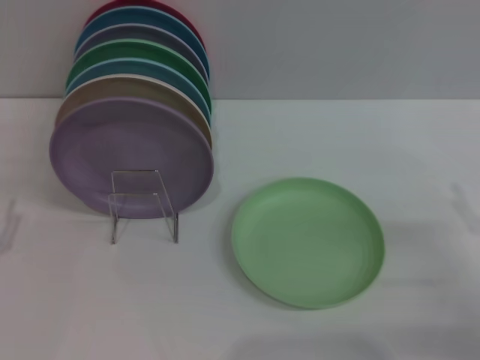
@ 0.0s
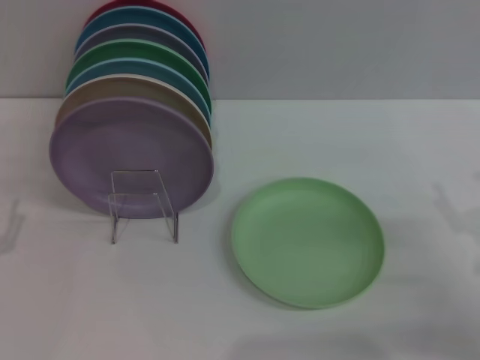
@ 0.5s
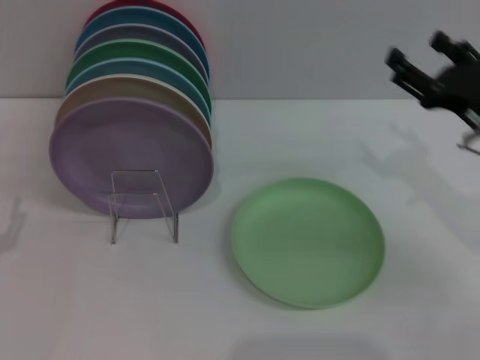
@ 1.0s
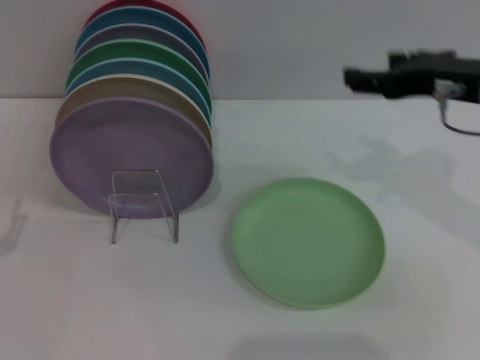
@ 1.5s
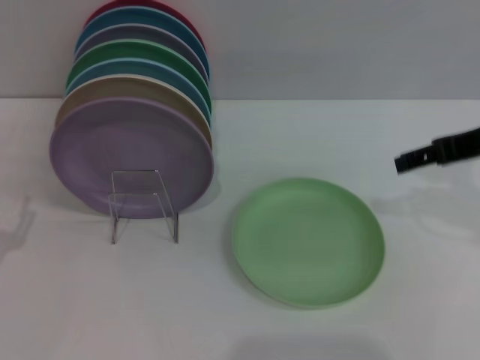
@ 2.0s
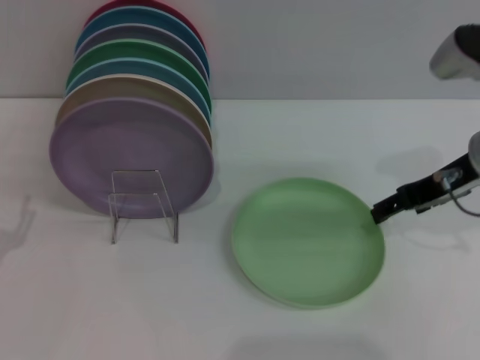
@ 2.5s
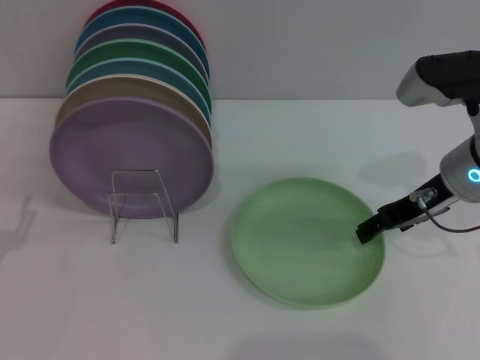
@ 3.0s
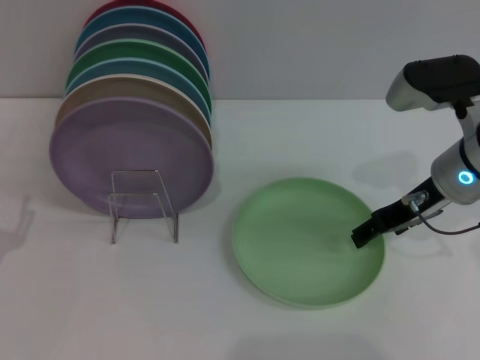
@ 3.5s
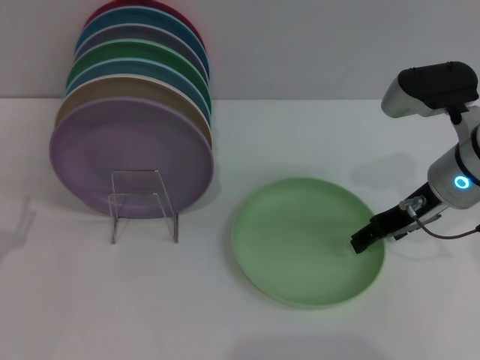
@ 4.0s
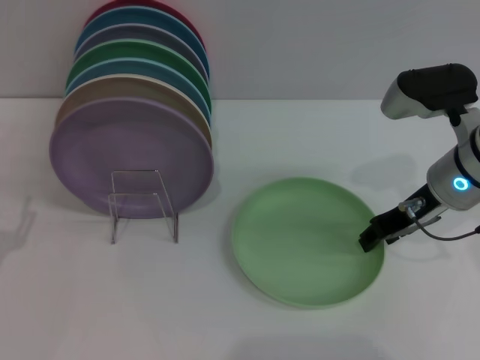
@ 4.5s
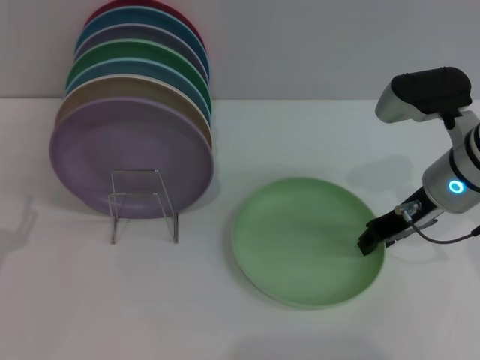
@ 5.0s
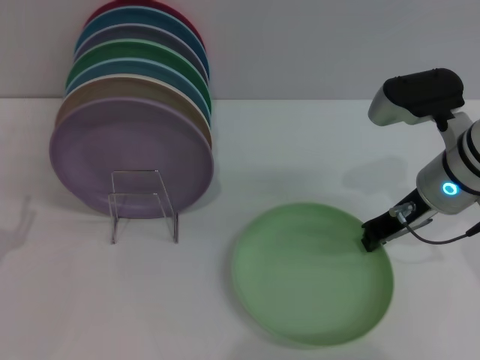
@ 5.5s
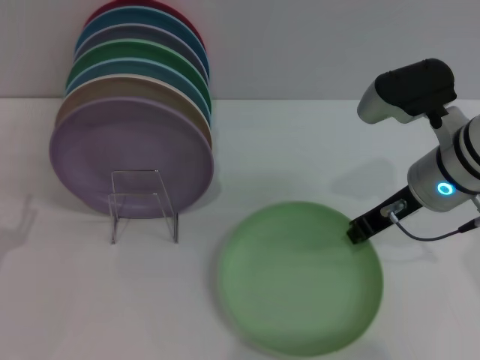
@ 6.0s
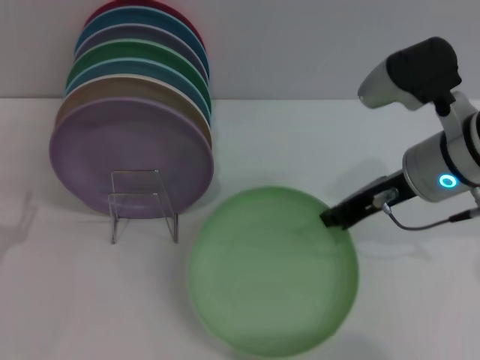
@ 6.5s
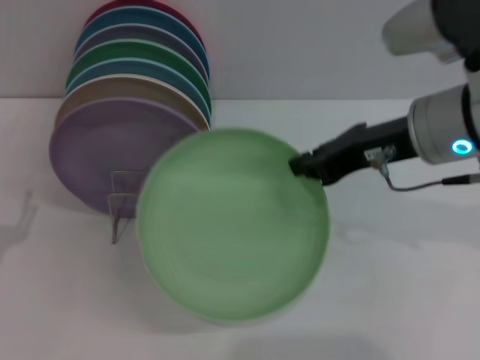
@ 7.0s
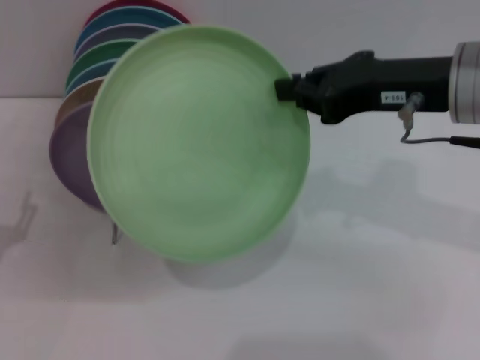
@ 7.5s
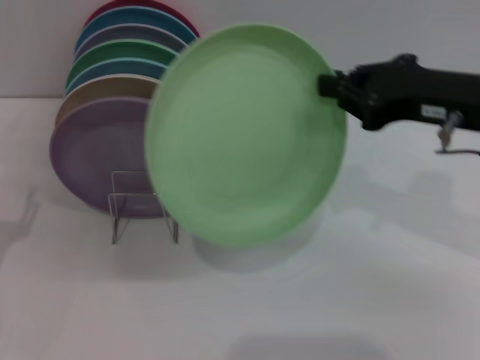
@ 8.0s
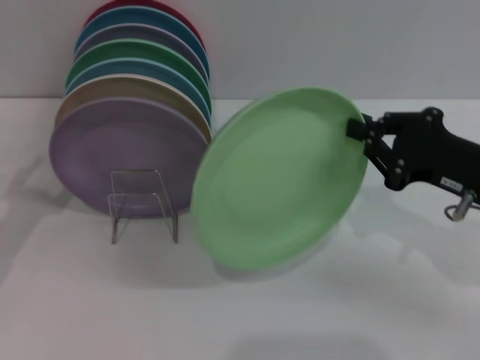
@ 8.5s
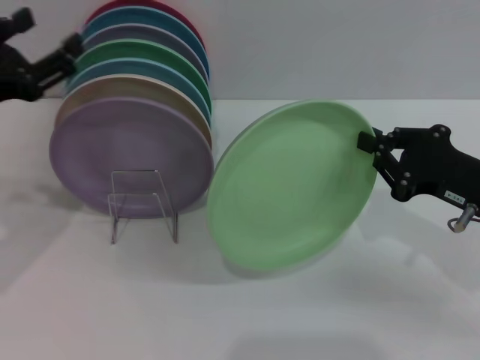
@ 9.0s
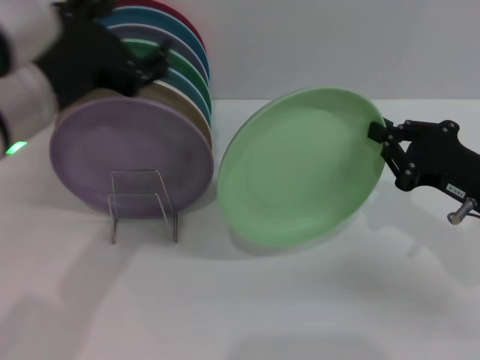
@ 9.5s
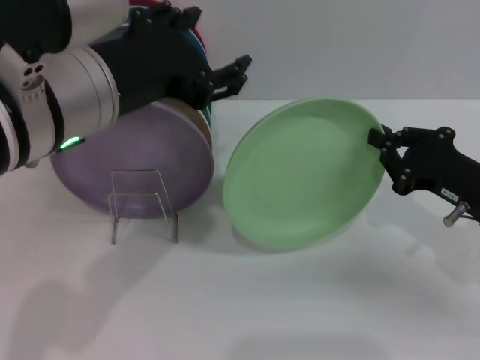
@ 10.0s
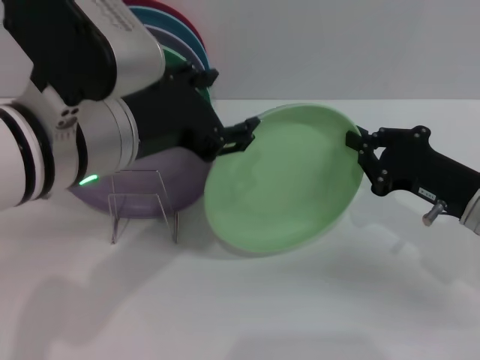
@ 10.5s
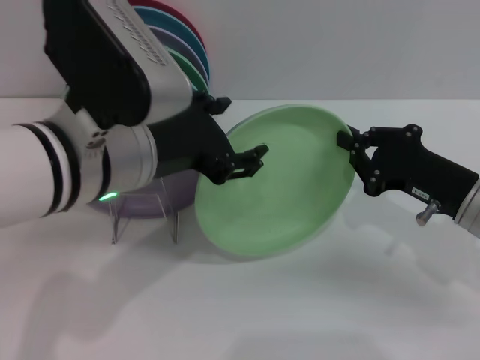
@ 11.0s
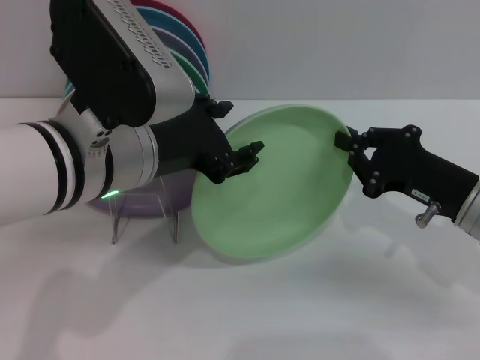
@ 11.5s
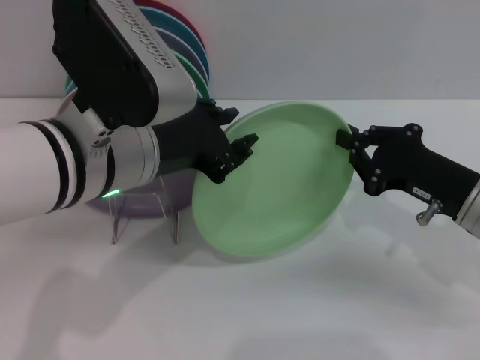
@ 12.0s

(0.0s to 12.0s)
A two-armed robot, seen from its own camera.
Task of the whole recording: Grip the plate with one hand, pass it to the other, then set it on the shelf.
Step, 0.0s - 6.5s: Pick up the plate with the right gripper.
0.0s - 2.0s: The right gripper travels upward and forward by some 20 cm.
2.0s - 4.0s: The right gripper shifts some 10 cm downward.
4.0s - 6.0s: The right gripper closes up.
6.0s - 8.0s: The right gripper heads upward, covering about 5 cm.
8.0s - 10.0s: The left gripper goes roughly 30 cm upward and to the right, while the right gripper is displaced downward by roughly 15 cm.
10.0s - 12.0s: The left gripper shifts by some 5 cm, and closes.

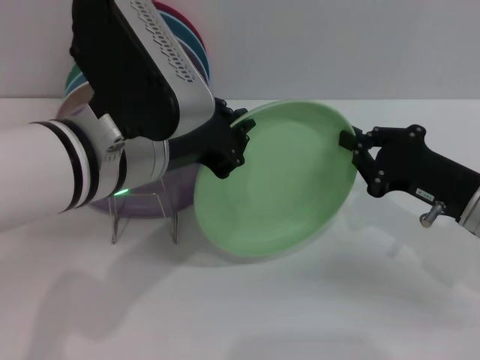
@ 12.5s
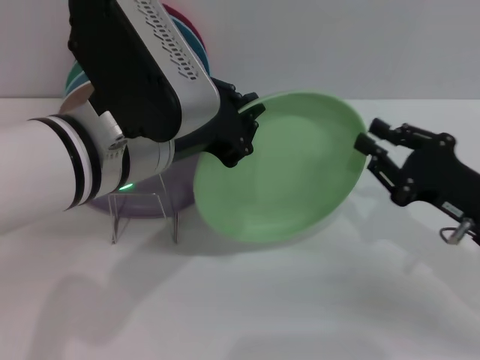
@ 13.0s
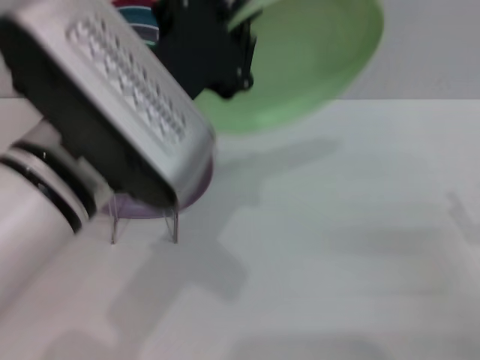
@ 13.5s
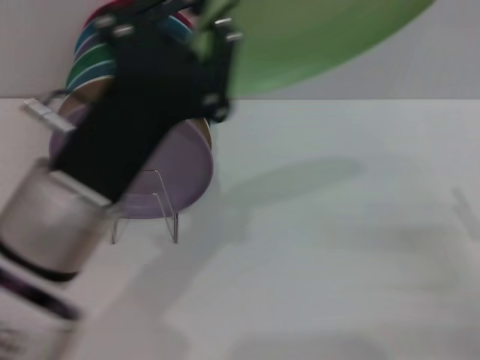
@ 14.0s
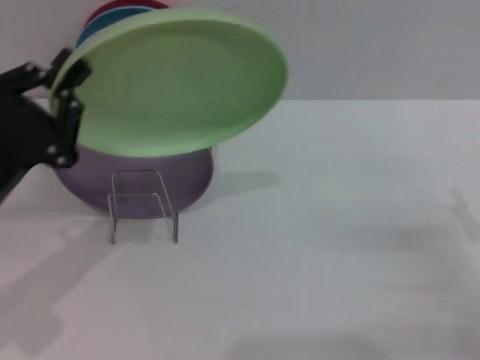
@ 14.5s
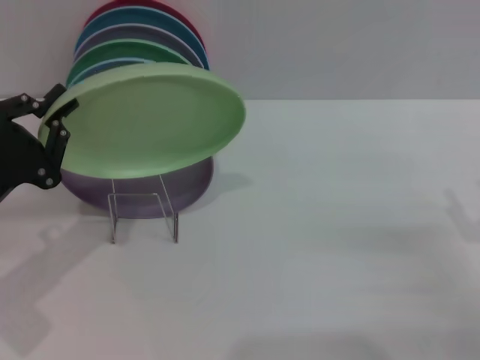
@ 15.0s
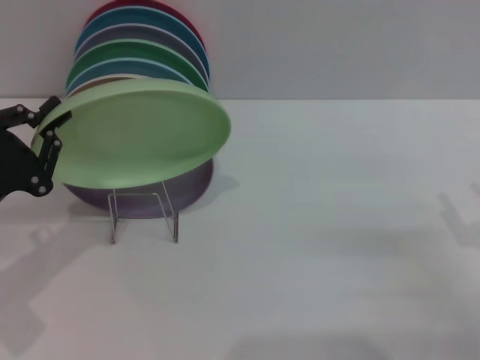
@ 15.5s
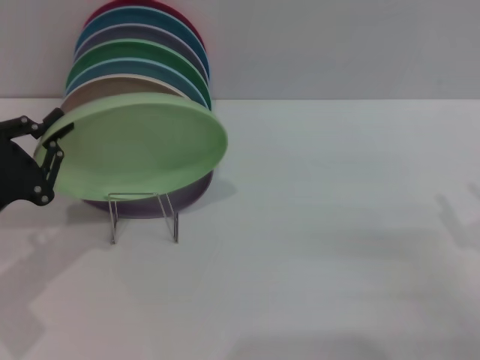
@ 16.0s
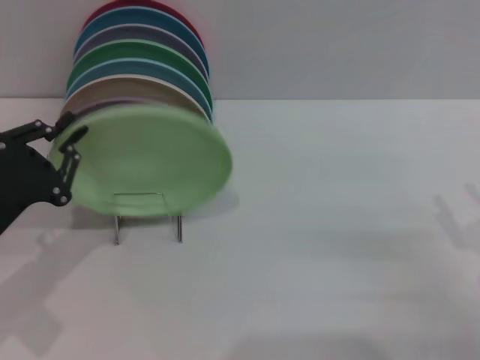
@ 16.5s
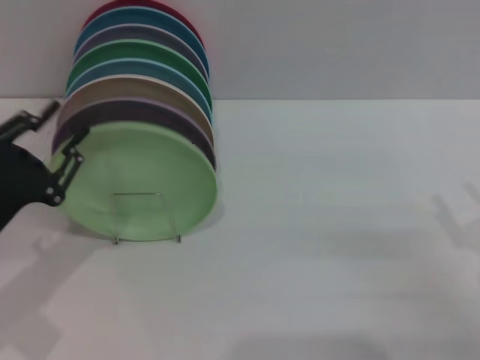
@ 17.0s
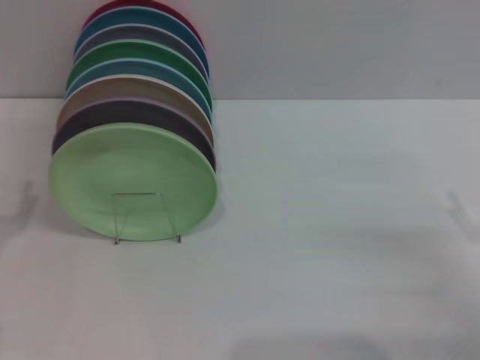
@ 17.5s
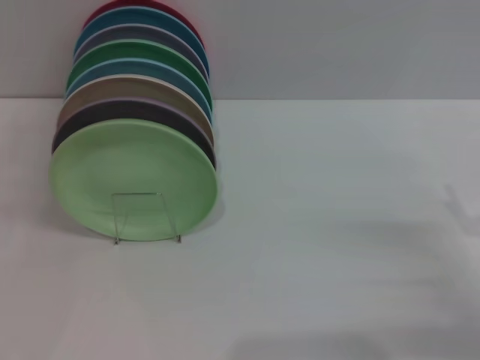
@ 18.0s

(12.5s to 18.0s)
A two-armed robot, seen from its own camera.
Task of the whole recording: Grip the plate with one hand, pass it to the other, then set it on the shelf.
Step, 13.5s - 17.0s: Place the plate on the shelf with the left gripper.
12.5s - 14.5s: The left gripper shifts about 20 cm to the left and downward, while the right gripper goes some 10 cm backward and to the right, and opens up.
14.5s - 16.0s: The grippers stay close to where they were, moving slightly.
16.0s - 18.0s: The left gripper is displaced backward by about 5 cm, and opens up.

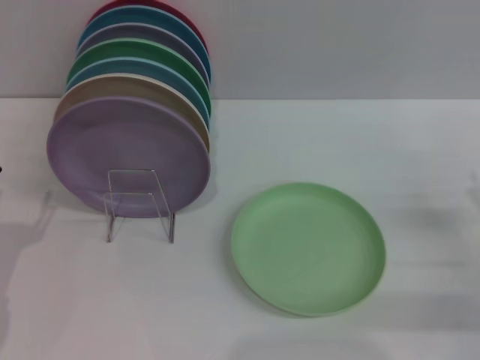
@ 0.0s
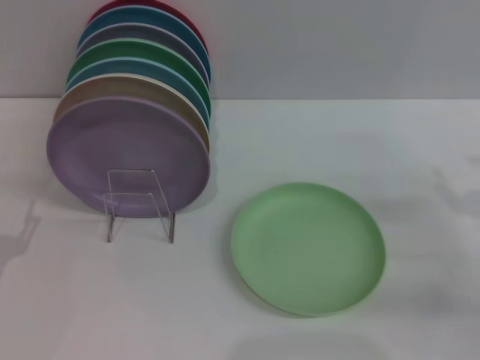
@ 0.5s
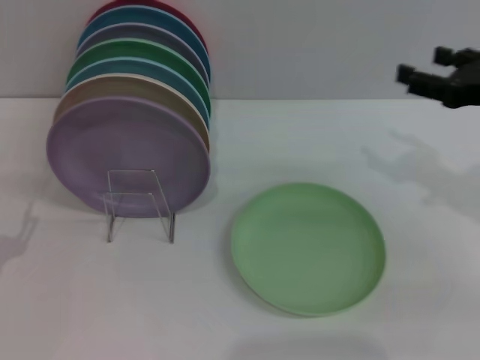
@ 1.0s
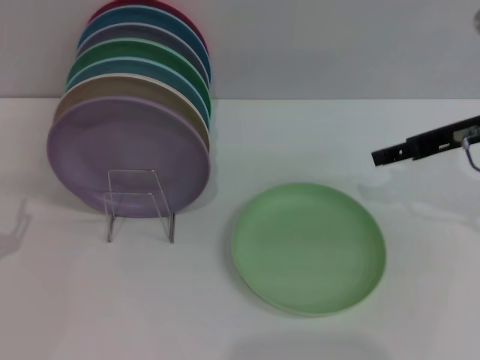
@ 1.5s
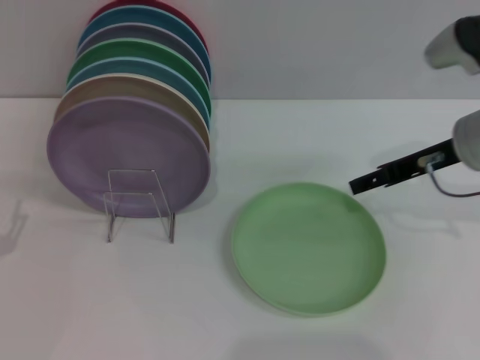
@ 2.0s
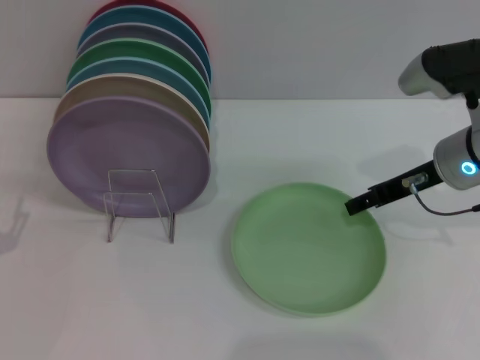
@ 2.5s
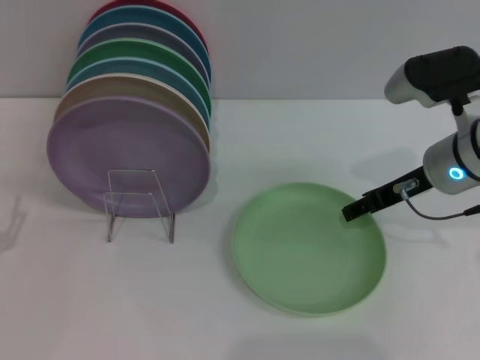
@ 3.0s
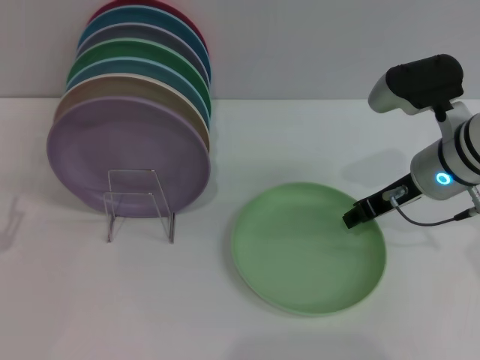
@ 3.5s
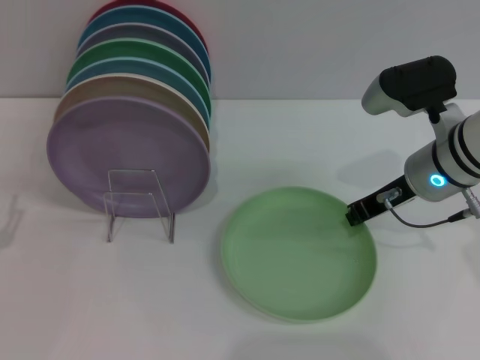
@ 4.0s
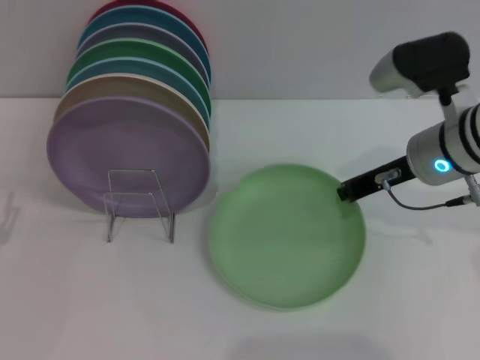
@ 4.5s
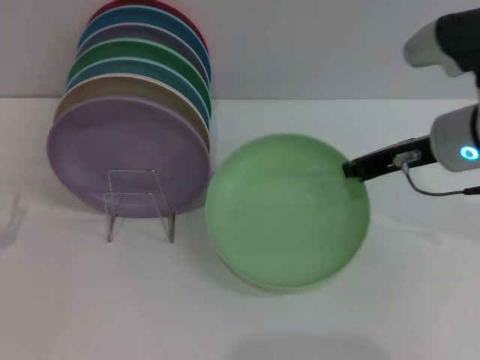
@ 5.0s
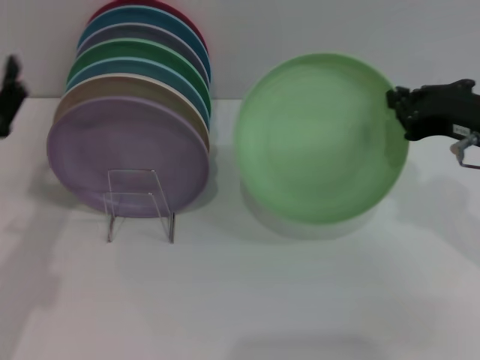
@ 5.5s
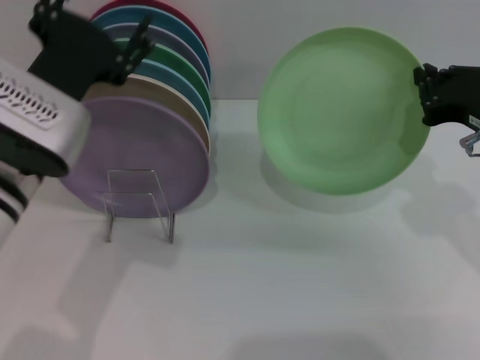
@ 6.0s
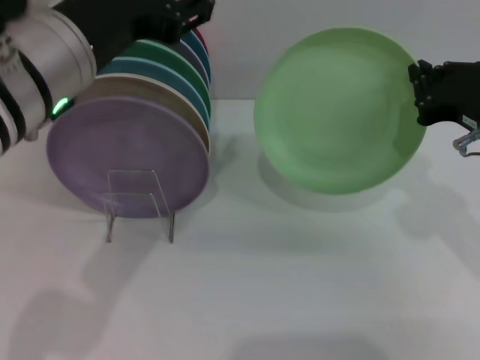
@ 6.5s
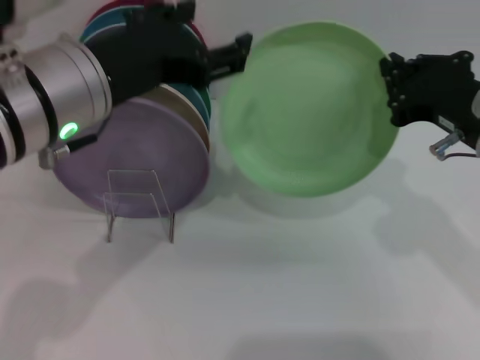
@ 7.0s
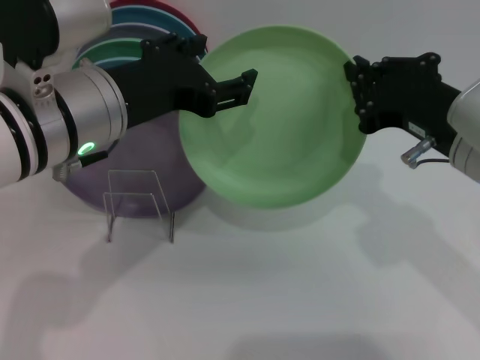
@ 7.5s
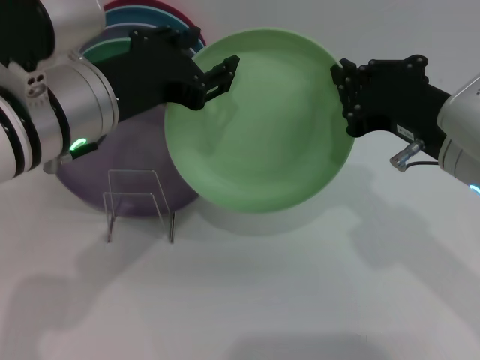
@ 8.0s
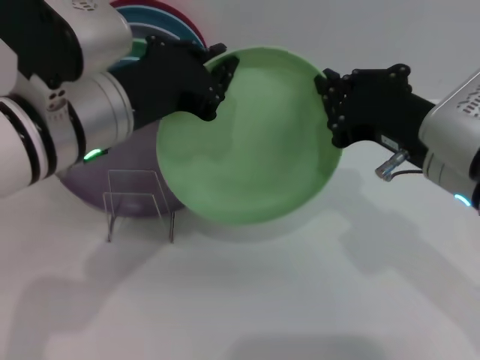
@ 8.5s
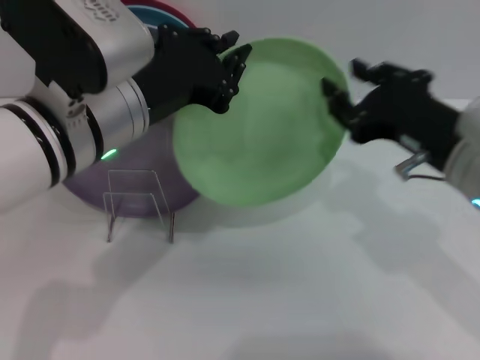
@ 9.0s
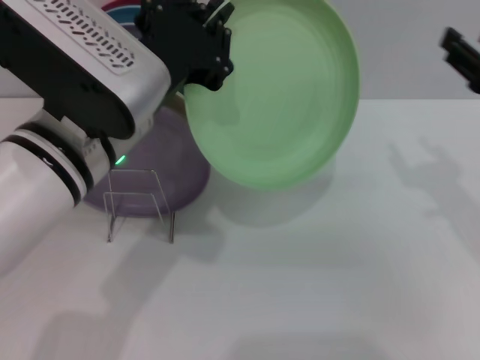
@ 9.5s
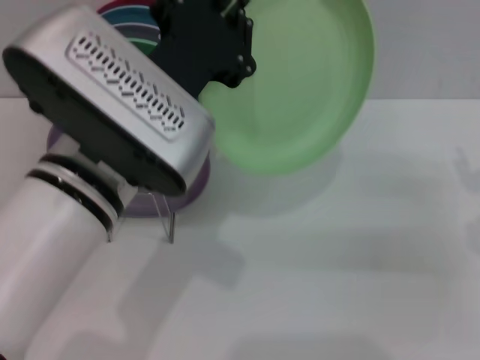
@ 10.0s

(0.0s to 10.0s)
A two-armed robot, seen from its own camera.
Task of the whole recording: Grip the plate with one hand, pass it to the other, then set it on the shelf.
Step, 0.0s - 4.5s: Pick up the plate with the right gripper.
Step, 5.0s - 9.5s: Pass the plate from the right gripper to the left gripper.
0.0s - 2.0s: The right gripper heads forward, upward and to the left, covering about 20 cm.
2.0s - 4.0s: The right gripper closes its fingers.
4.0s - 6.0s: The right gripper heads backward and upward, covering about 10 cm, while the left gripper shifts roughly 25 cm to the right, upward and forward.
6.0s - 8.0s: The right gripper travels to the left by approximately 5 cm.
8.0s - 10.0s: The right gripper goes some 15 cm to the right, and opens up, while the left gripper heads to the right, covering about 5 cm, and closes up.
